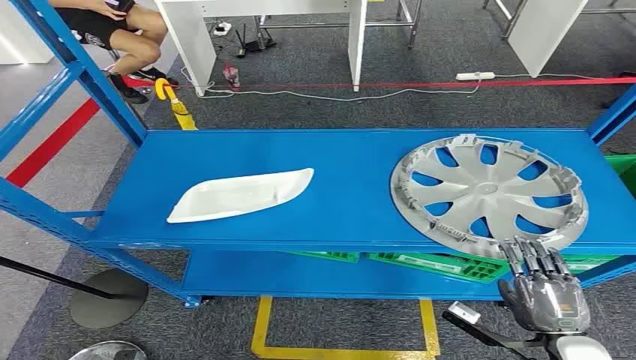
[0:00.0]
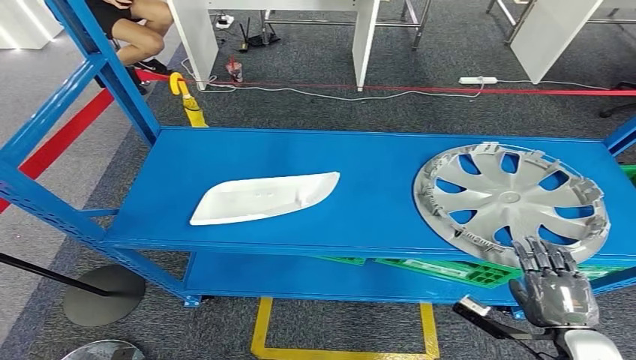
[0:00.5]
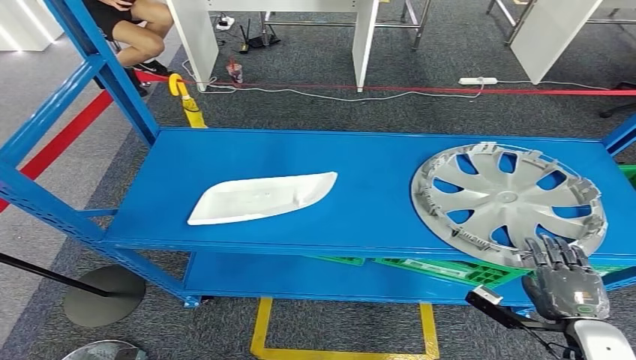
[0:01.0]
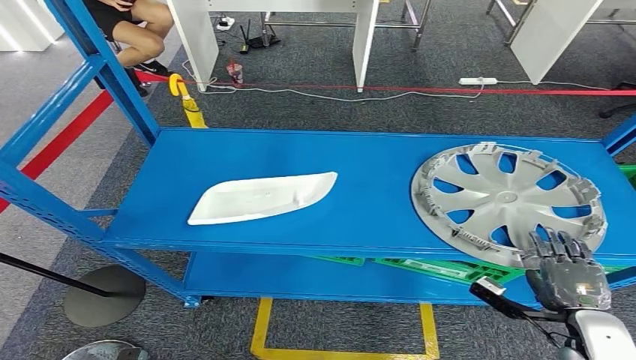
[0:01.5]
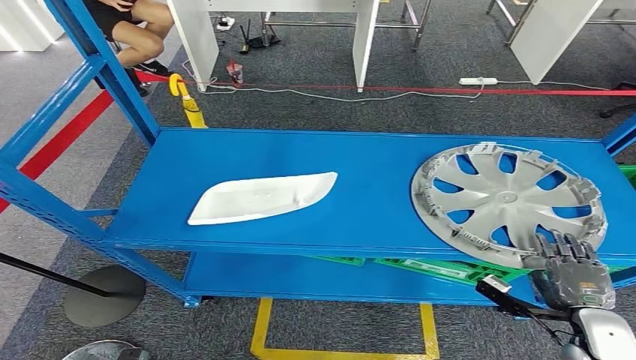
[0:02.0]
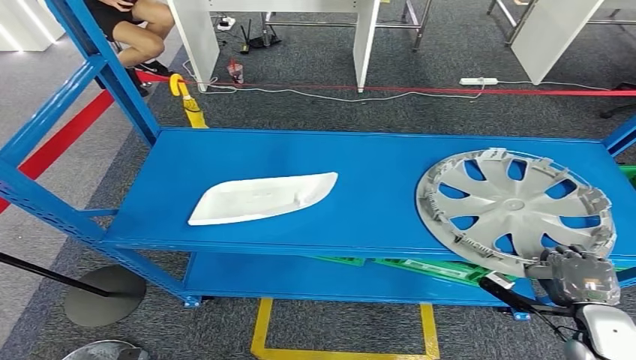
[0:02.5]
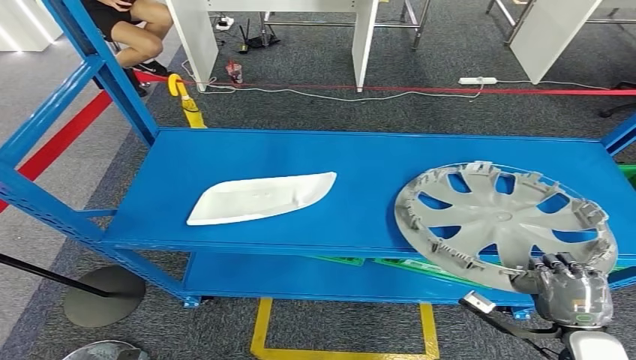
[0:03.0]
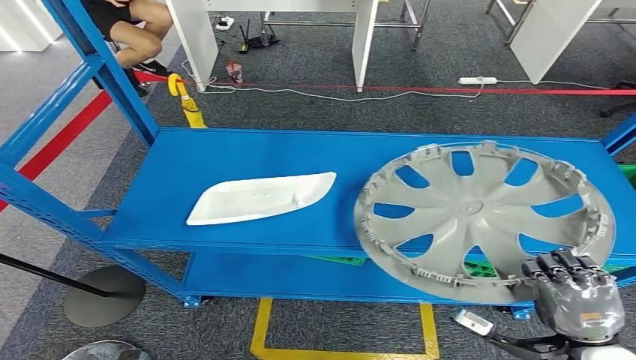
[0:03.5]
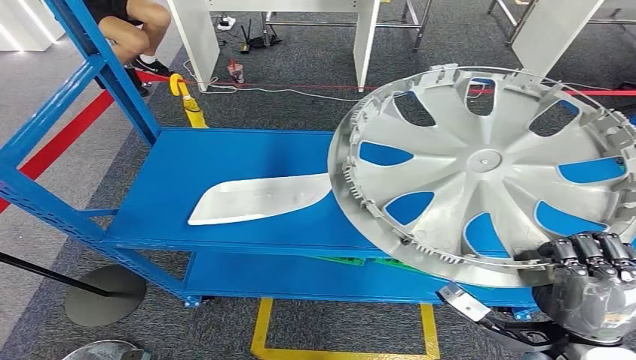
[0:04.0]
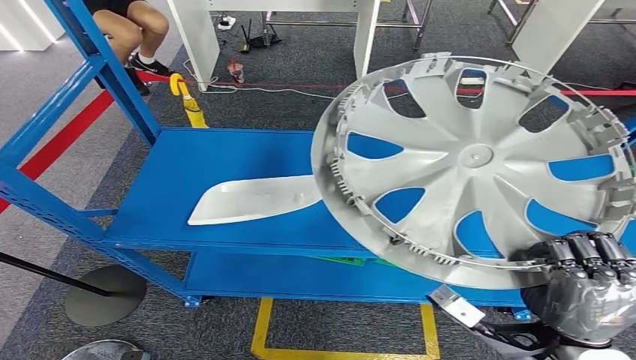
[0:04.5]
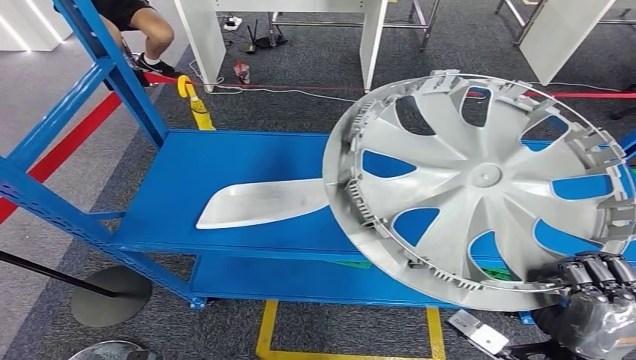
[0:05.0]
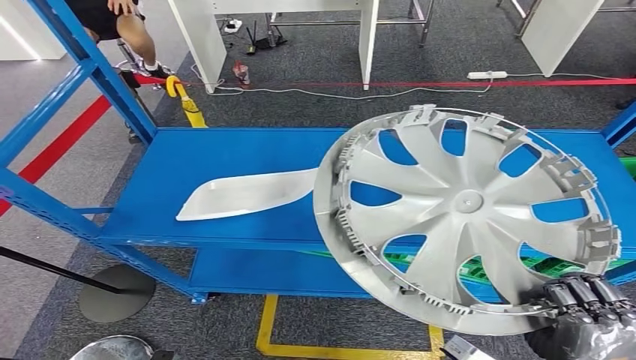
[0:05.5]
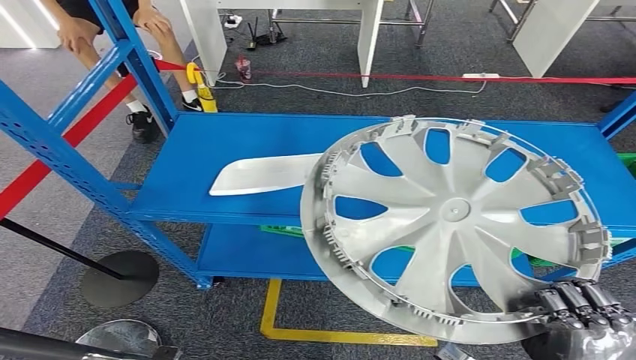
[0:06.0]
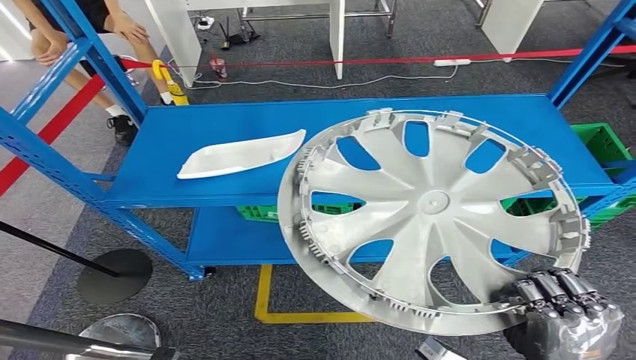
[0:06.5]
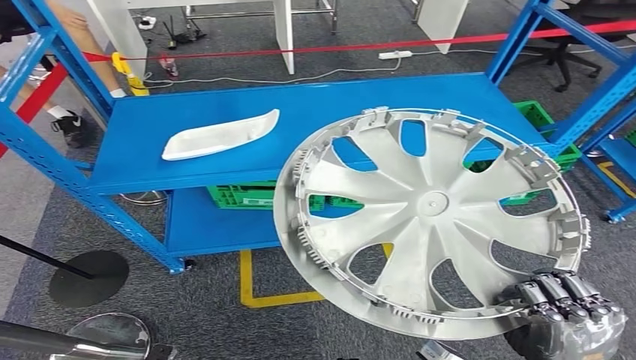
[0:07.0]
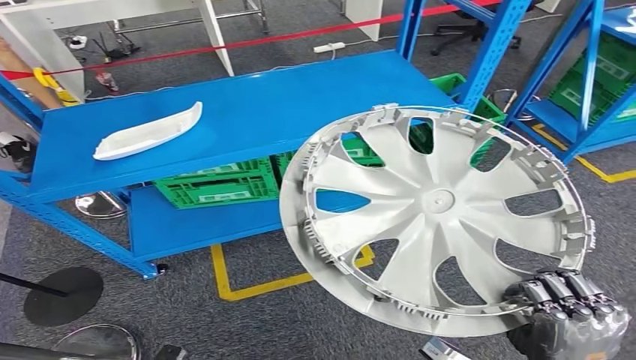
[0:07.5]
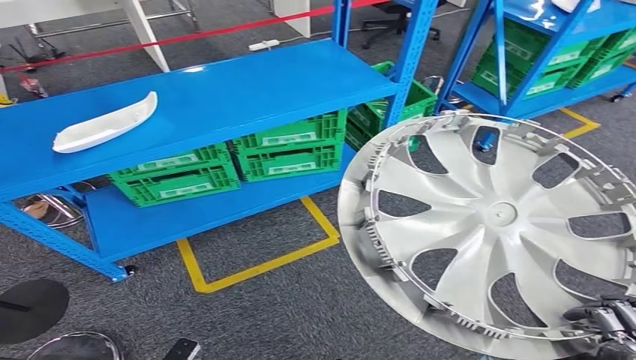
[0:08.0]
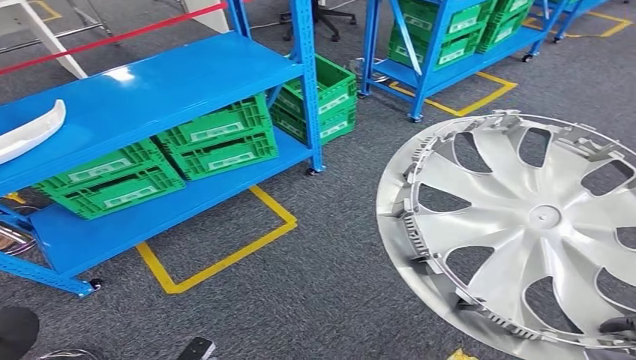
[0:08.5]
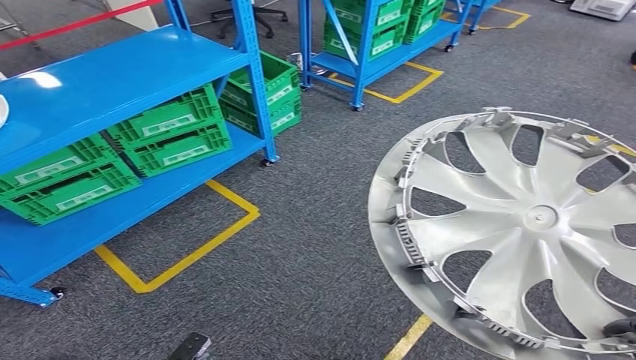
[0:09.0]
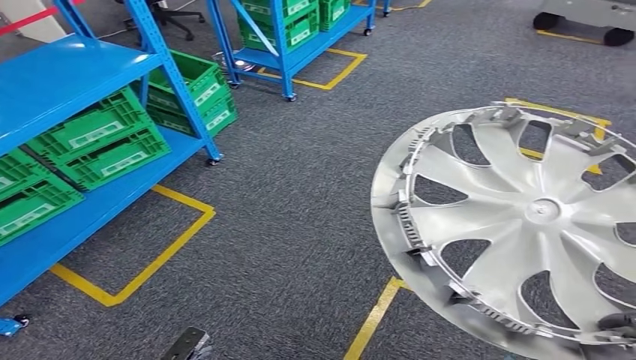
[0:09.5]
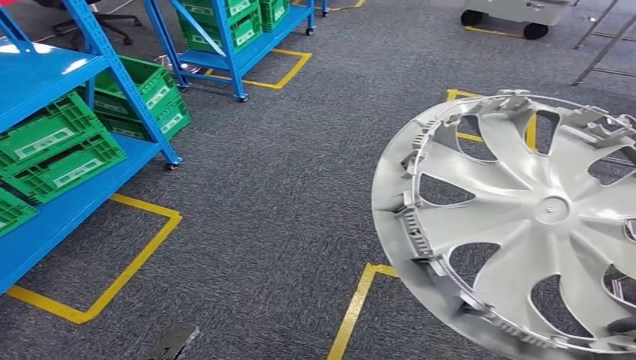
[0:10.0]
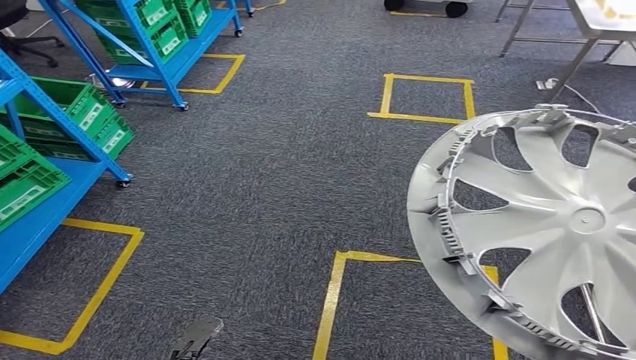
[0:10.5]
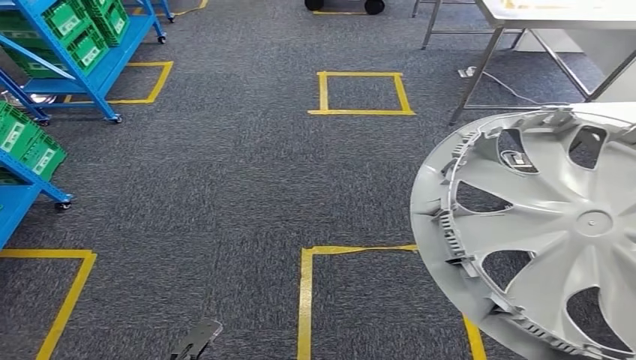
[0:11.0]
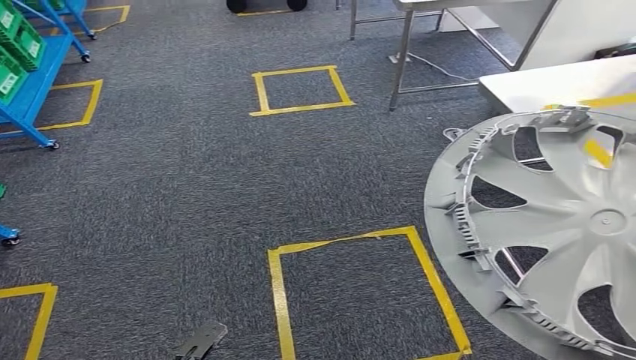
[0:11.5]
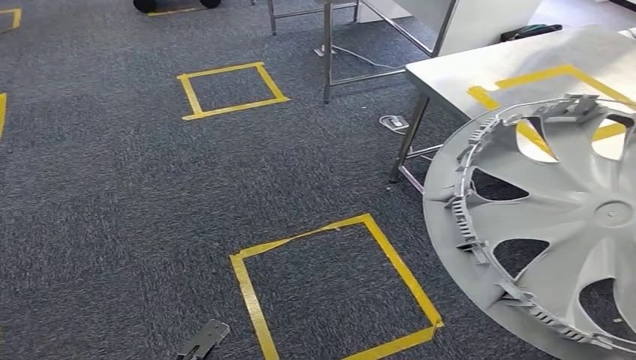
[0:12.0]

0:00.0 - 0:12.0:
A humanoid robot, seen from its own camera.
Step, 0:00.0 - 0:04.5: Pick up the small component from the shelf.

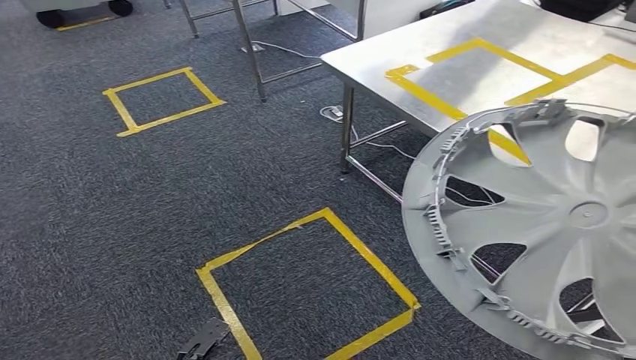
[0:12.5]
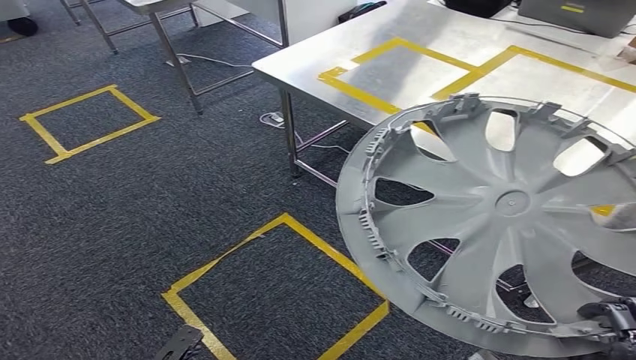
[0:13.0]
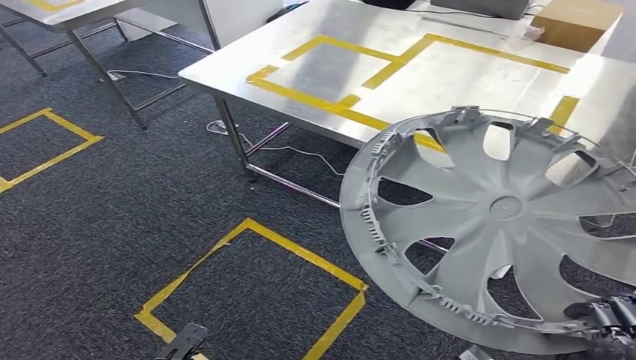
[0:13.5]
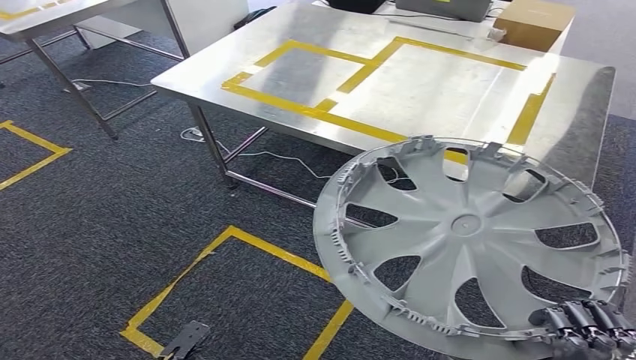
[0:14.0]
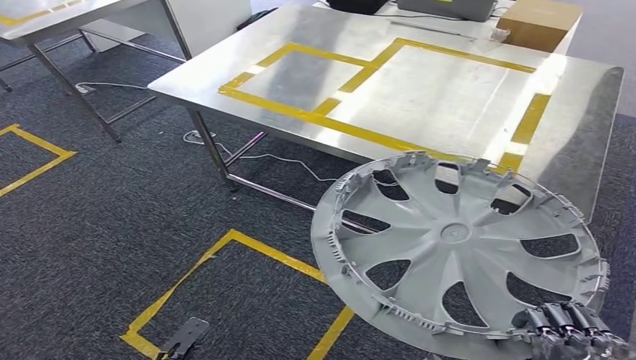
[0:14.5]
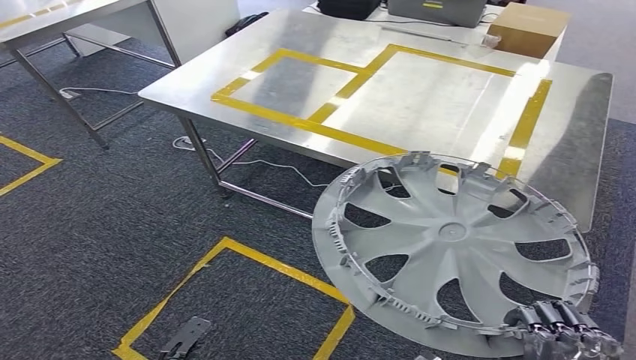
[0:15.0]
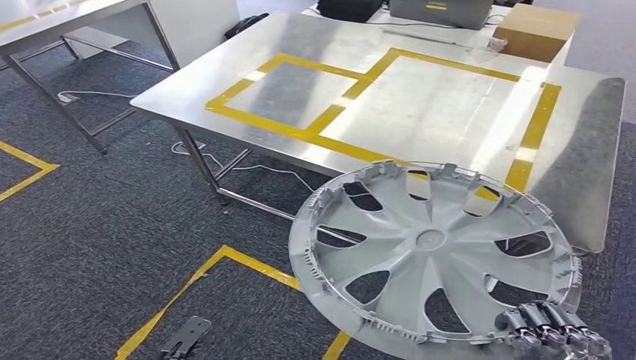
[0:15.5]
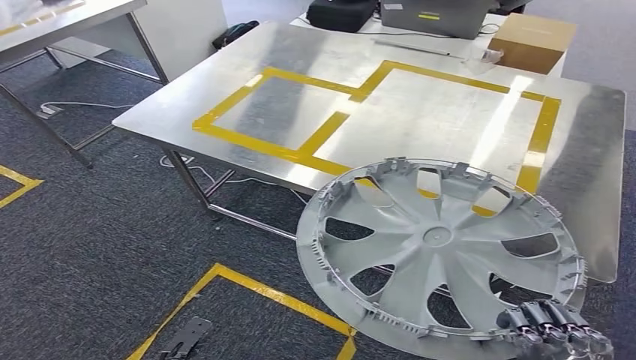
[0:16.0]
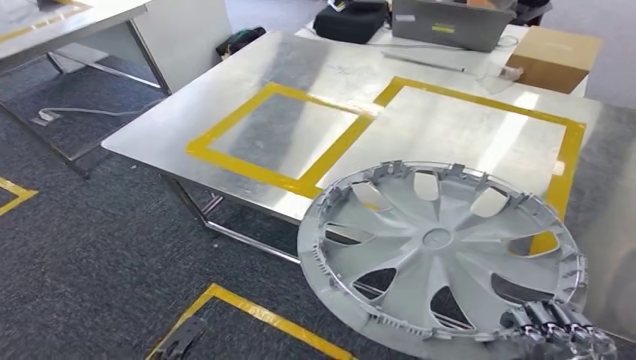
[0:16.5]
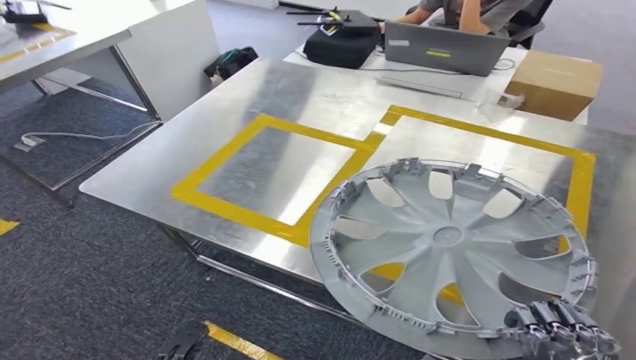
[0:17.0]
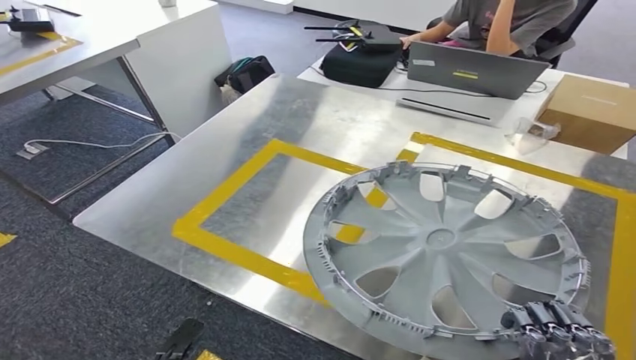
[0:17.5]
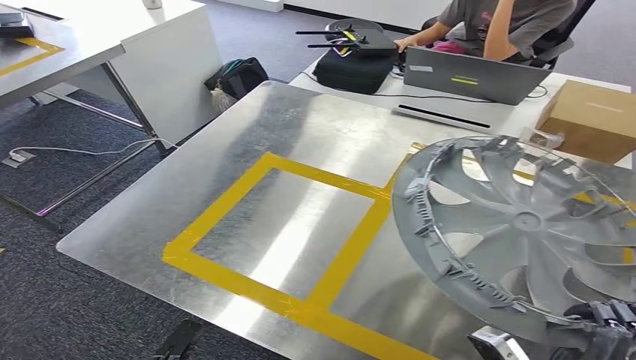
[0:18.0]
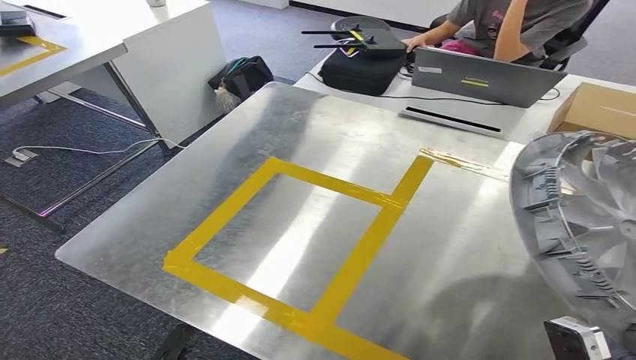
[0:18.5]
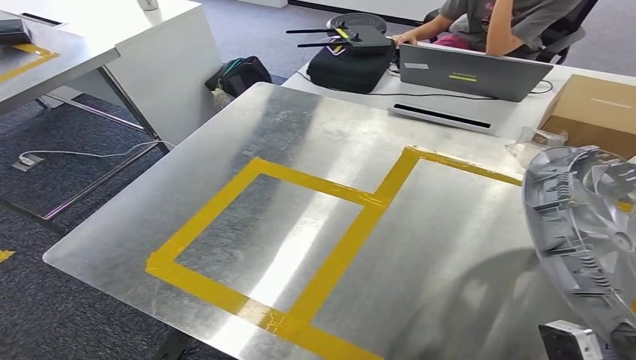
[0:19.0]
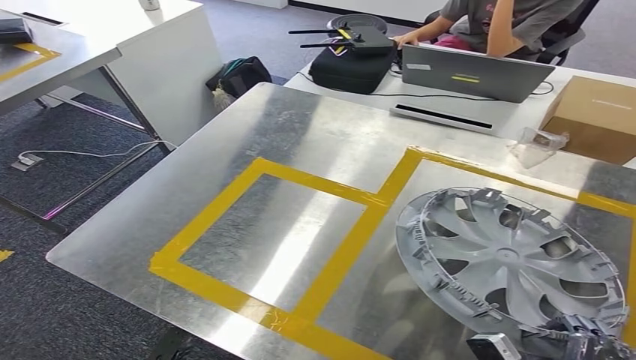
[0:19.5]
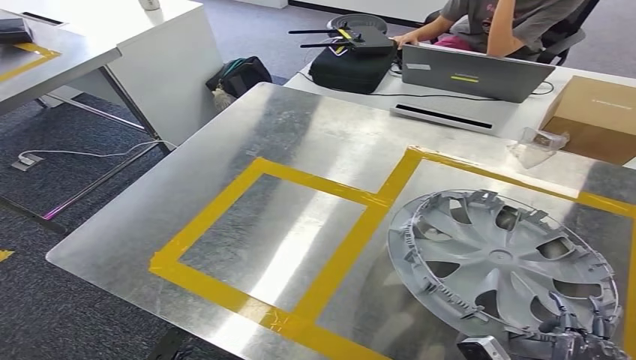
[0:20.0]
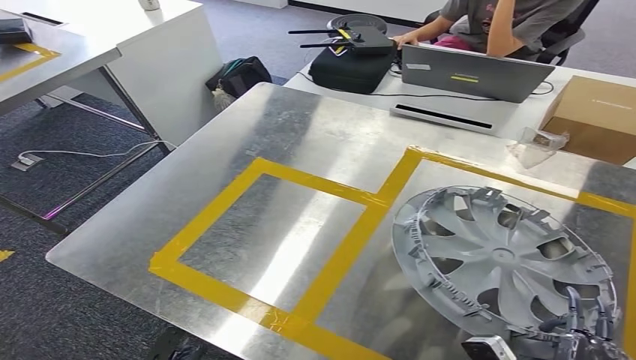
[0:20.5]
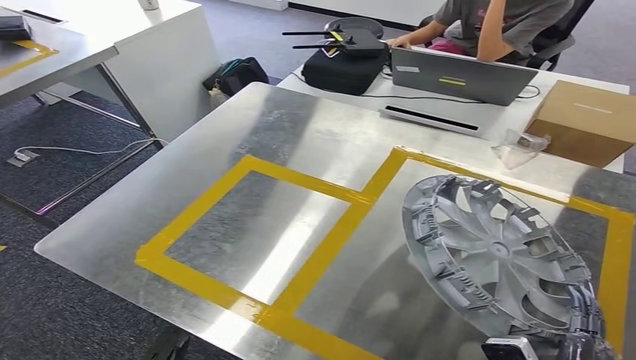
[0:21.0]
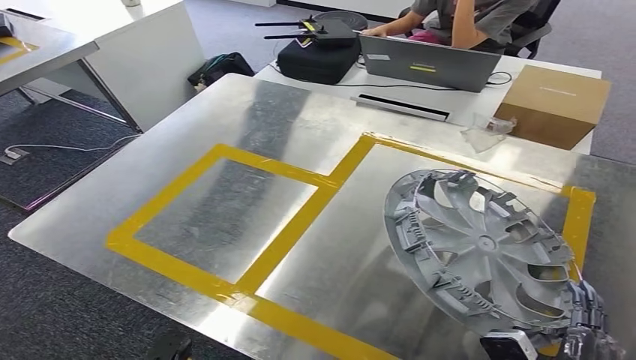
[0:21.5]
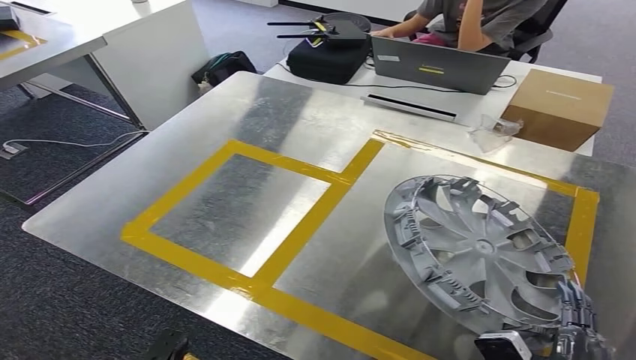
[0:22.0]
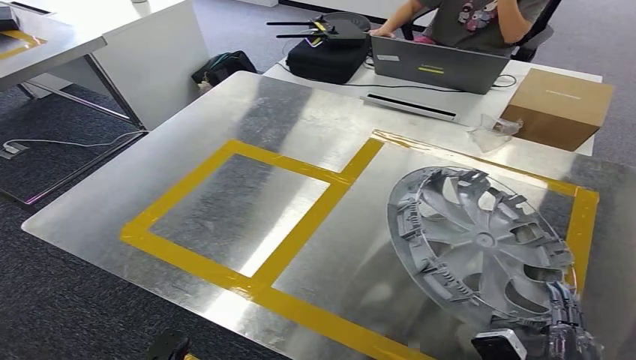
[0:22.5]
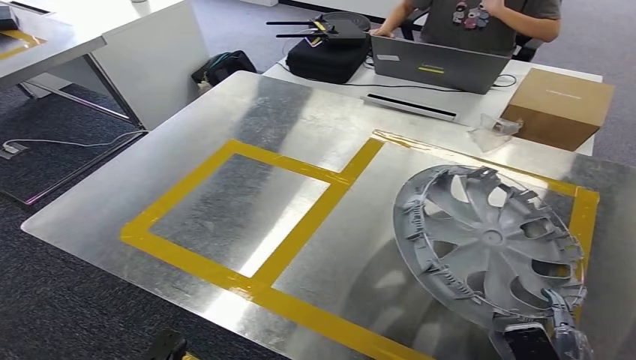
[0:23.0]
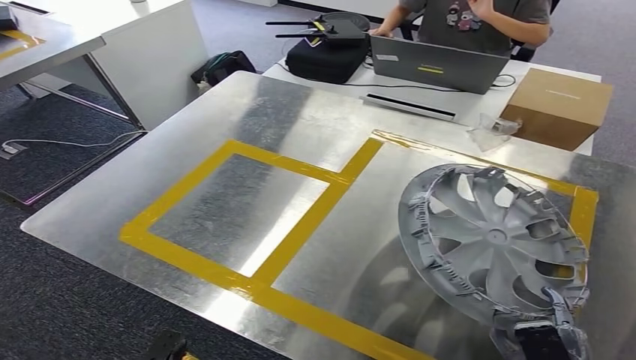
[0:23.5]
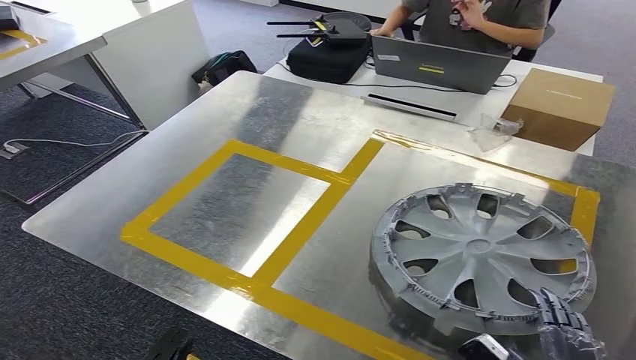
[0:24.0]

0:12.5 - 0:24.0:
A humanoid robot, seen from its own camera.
Step, 0:12.5 - 0:14.5: Move the small component to the workbench.
